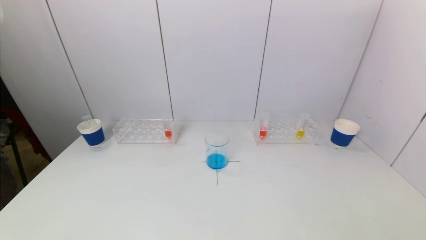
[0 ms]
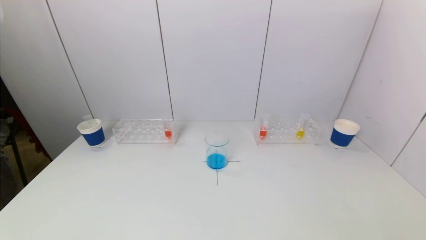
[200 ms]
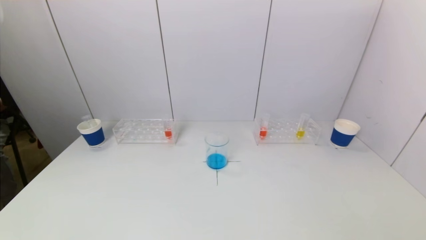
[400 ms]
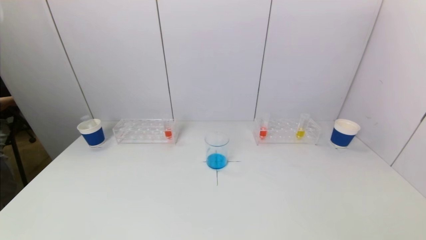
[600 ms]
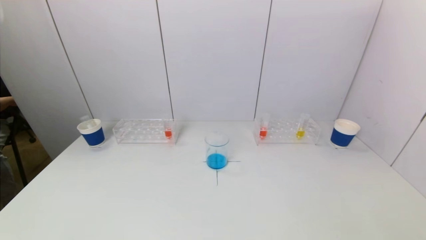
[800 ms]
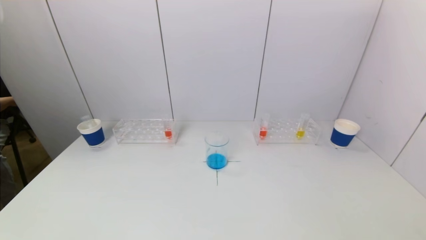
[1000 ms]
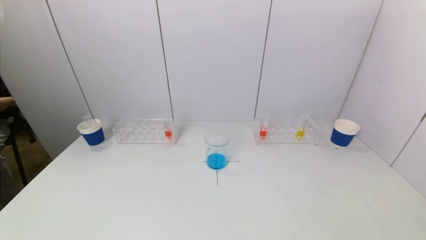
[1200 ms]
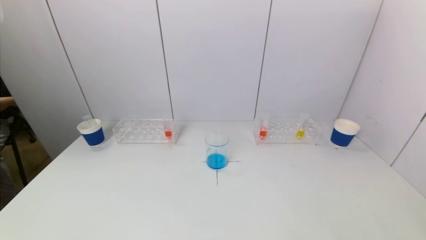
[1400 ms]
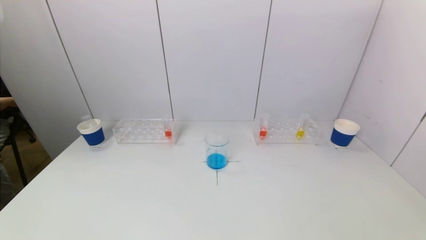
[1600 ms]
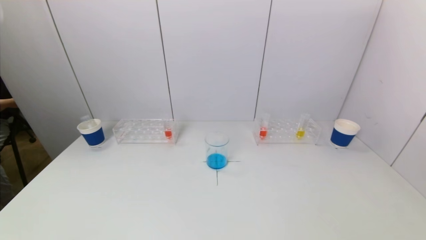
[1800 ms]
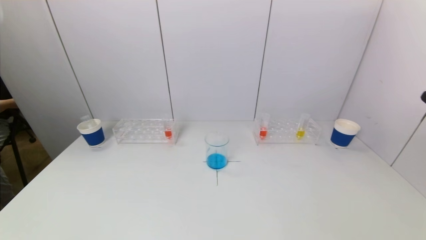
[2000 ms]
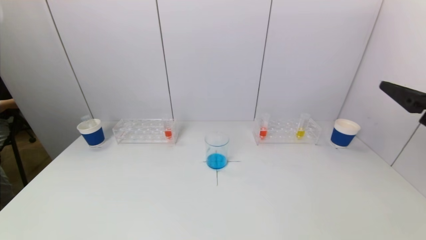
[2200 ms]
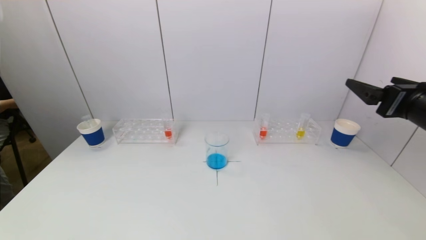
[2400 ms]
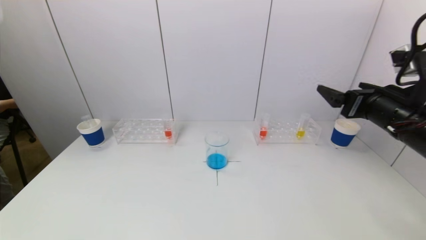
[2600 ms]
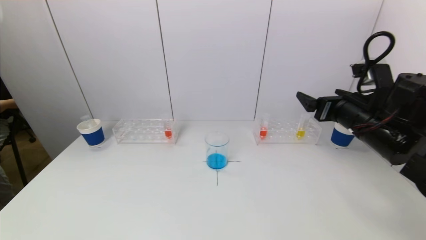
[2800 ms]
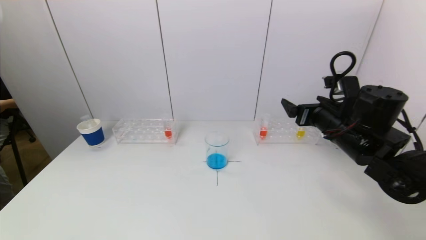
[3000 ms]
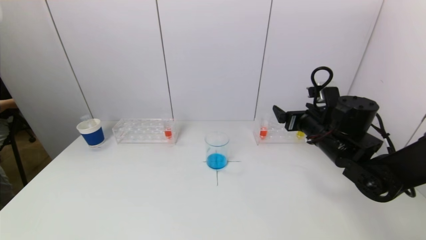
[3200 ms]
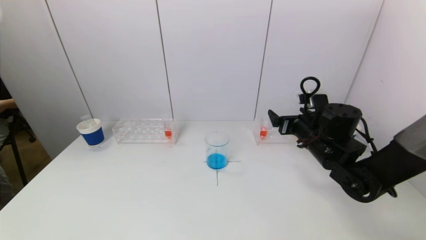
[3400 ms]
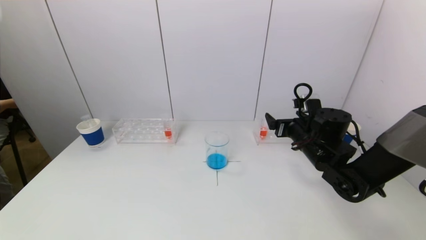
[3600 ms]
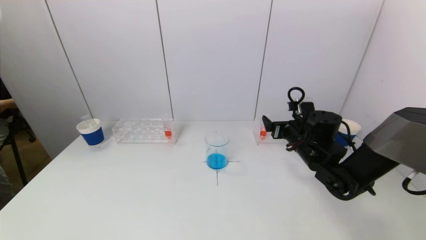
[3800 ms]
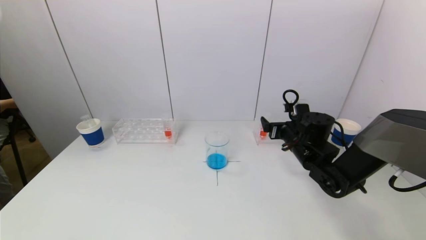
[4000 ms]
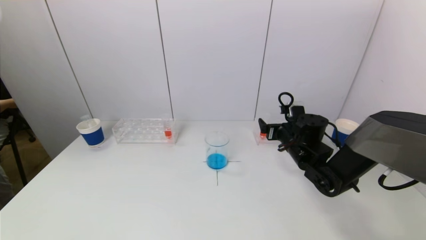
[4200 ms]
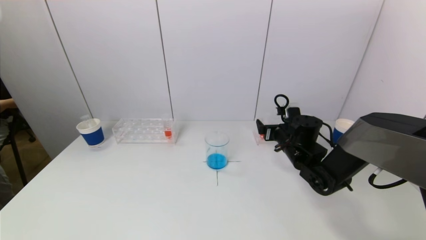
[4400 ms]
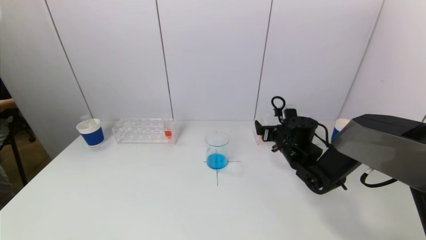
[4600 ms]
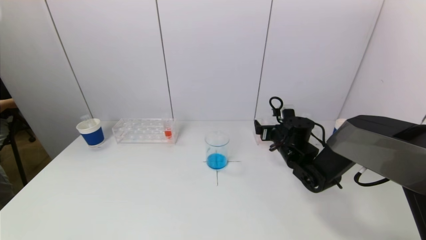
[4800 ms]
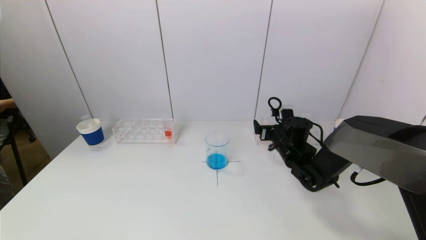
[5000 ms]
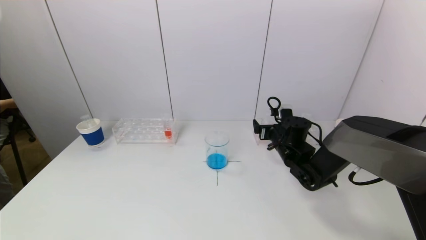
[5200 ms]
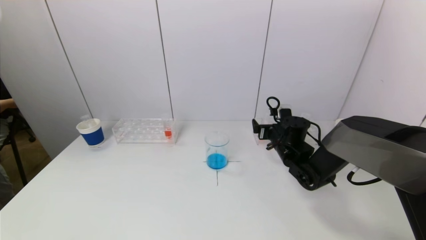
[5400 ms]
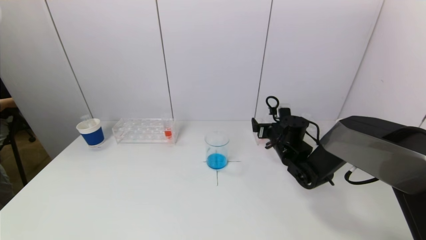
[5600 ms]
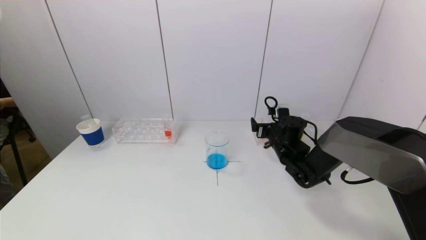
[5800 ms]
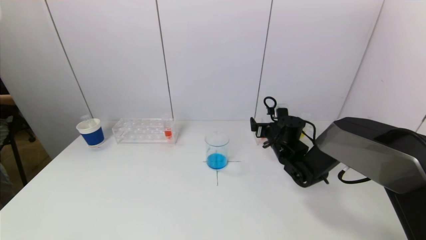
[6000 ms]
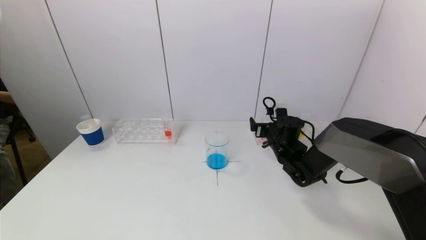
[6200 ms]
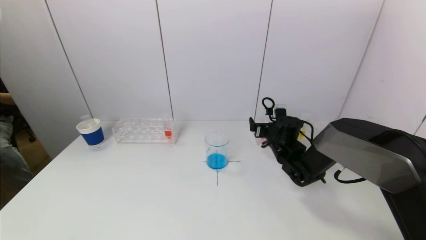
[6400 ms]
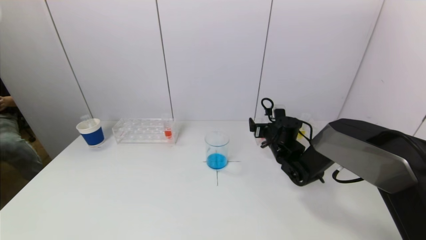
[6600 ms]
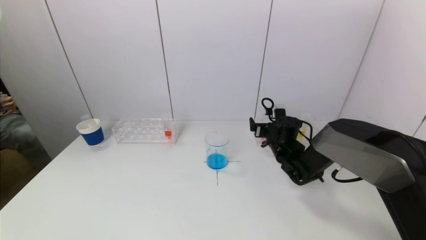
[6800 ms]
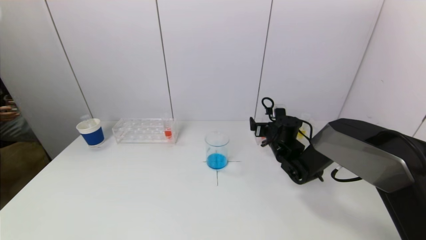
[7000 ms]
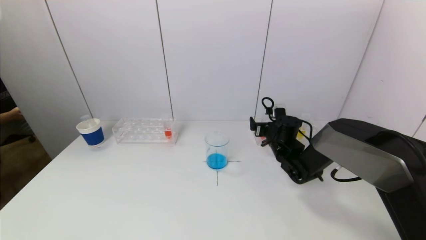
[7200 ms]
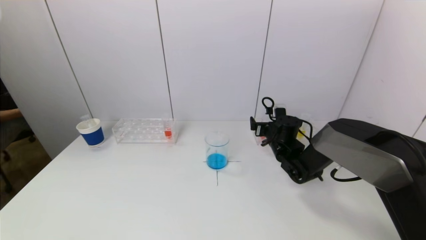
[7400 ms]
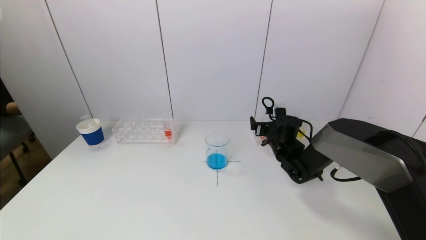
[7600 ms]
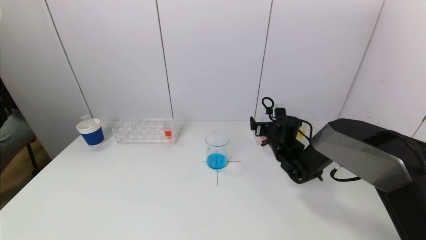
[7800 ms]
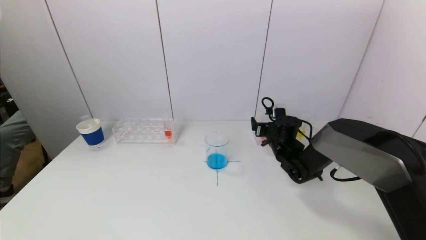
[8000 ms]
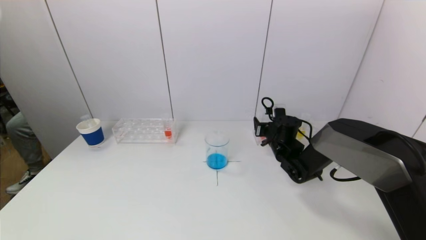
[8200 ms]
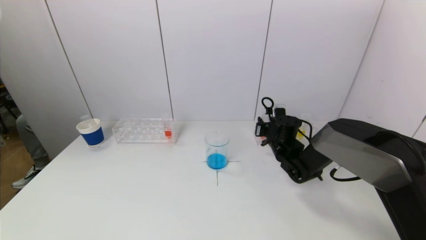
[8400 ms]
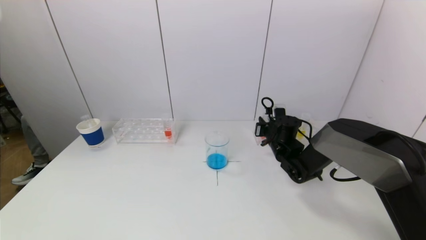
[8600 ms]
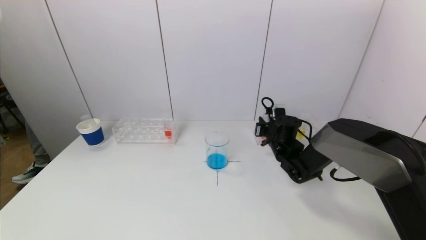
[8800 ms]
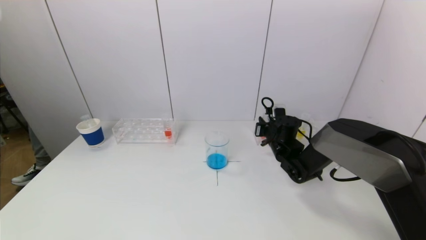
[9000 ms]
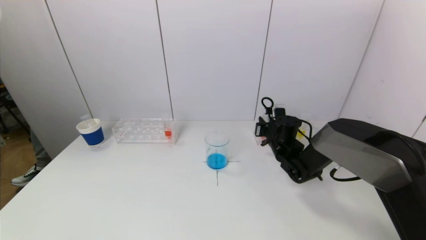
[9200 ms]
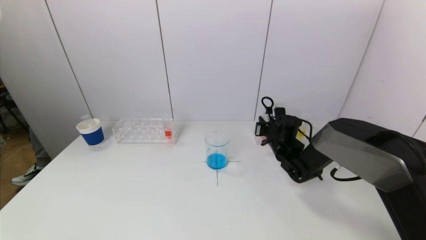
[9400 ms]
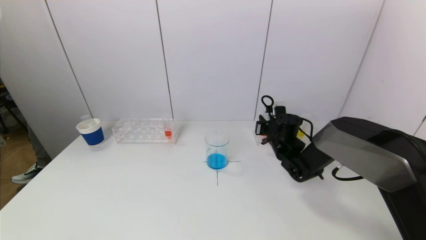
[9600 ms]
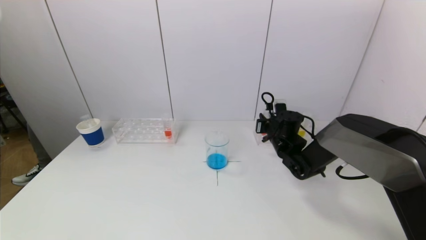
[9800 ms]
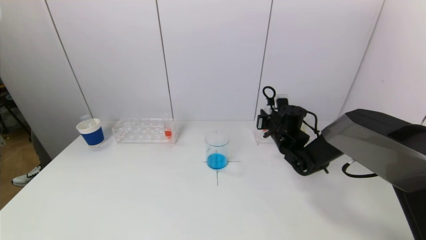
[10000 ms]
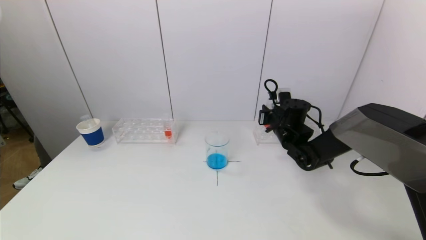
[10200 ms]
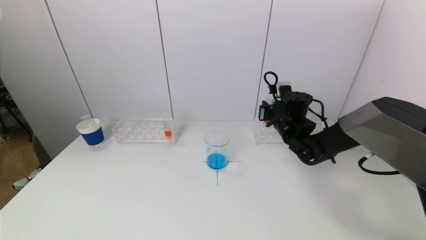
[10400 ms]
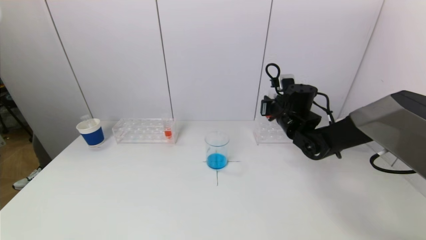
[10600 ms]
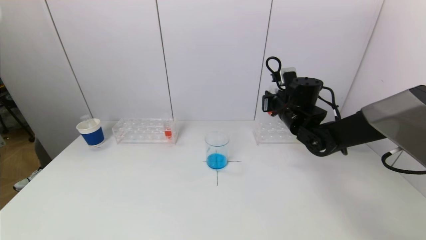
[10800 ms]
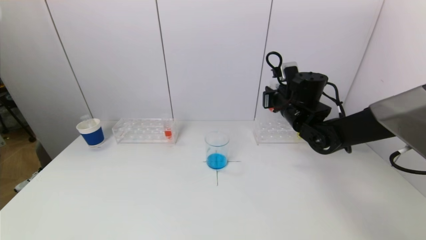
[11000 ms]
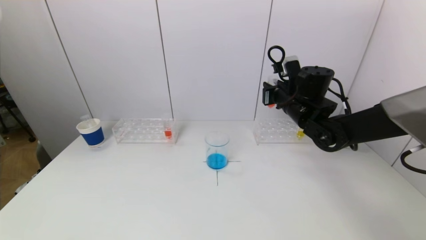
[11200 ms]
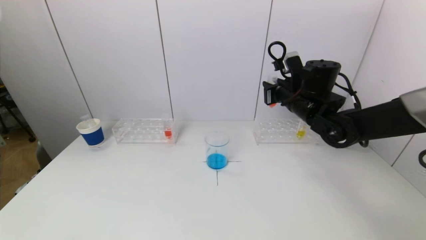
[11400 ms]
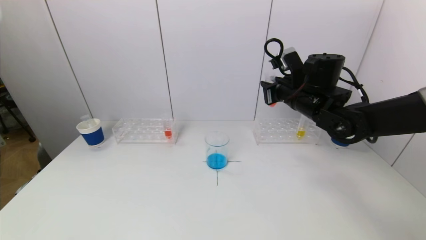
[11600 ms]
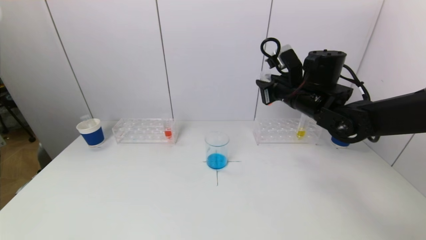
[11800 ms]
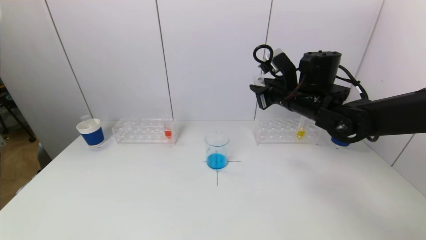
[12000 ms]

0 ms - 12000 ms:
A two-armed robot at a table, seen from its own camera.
Task of the whole recording: pick up a test tube with pigment on left test tube rack and a test tube with pigment on right test tube rack by grippers and pour them into the beaker.
Step, 0 ms - 8800 ms: Grasp the red reagent with the right gripper.
1600 ms - 3000 ms: The right gripper goes approximately 30 cm forward.
3000 ms - 4400 ms: The right gripper goes some 15 cm downward and forward.
4400 ms - 7600 ms: The grippers make only small movements.
9000 ms - 10400 ms: The right gripper is displaced upward by about 10 cm.
10400 ms - 12000 ms: The right gripper heads upward and backward, covering some 10 cm.

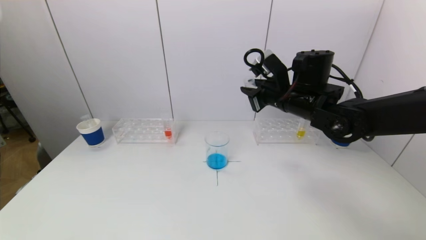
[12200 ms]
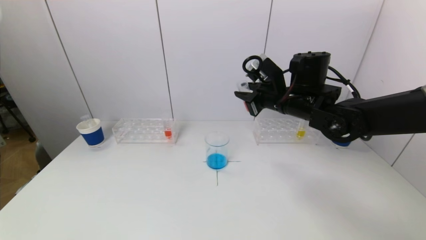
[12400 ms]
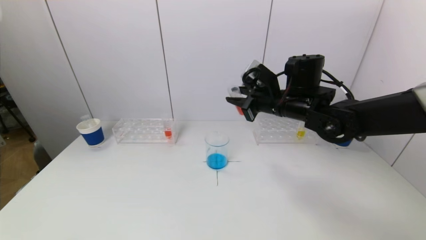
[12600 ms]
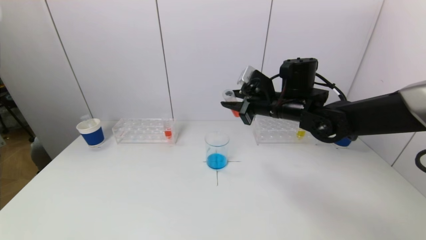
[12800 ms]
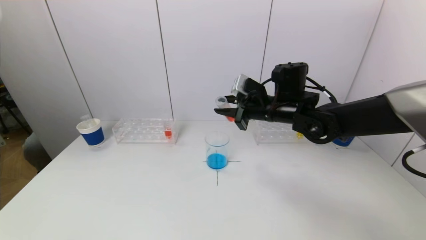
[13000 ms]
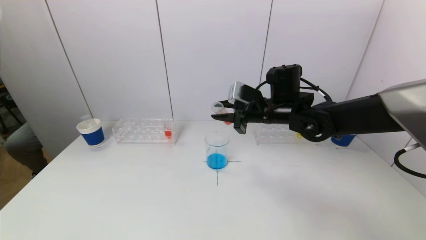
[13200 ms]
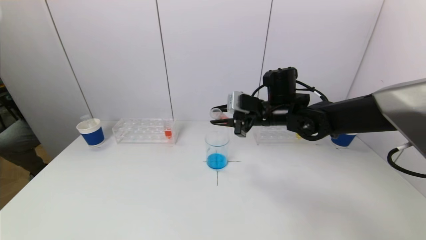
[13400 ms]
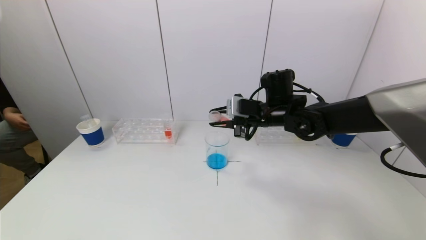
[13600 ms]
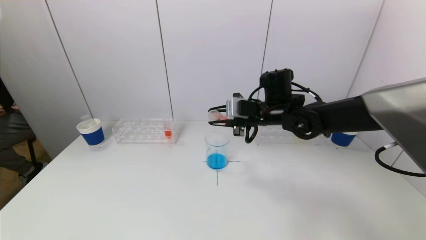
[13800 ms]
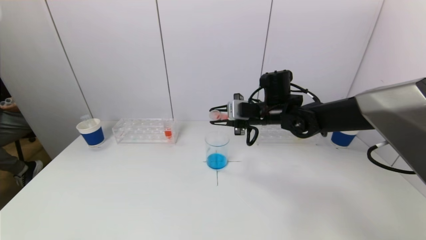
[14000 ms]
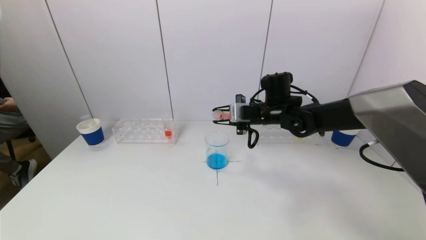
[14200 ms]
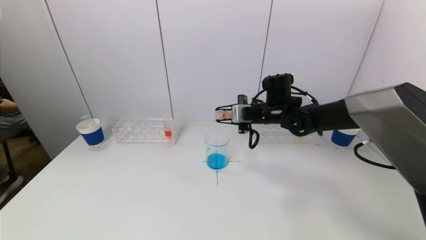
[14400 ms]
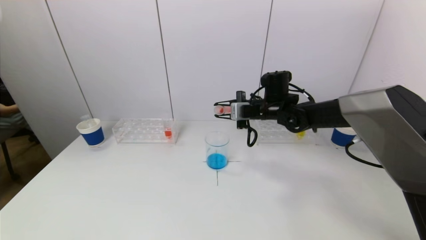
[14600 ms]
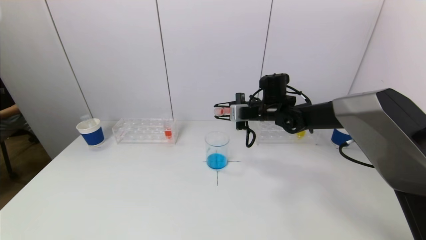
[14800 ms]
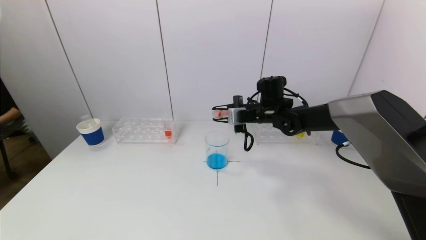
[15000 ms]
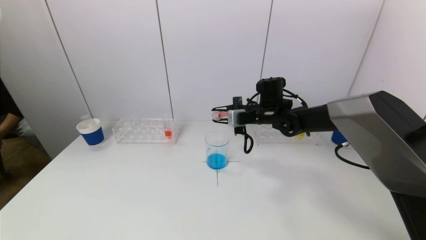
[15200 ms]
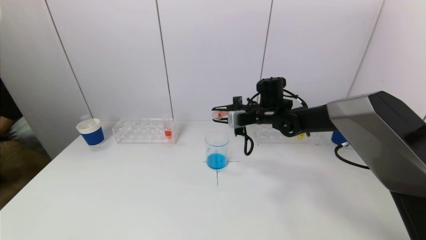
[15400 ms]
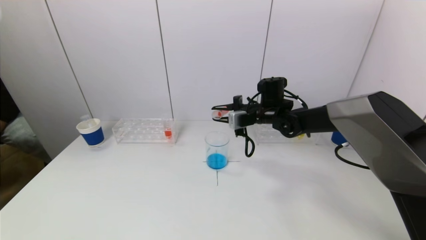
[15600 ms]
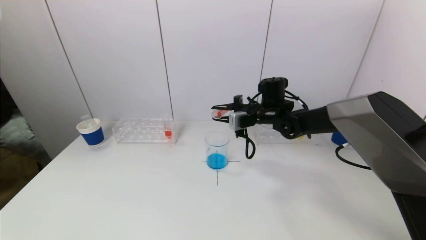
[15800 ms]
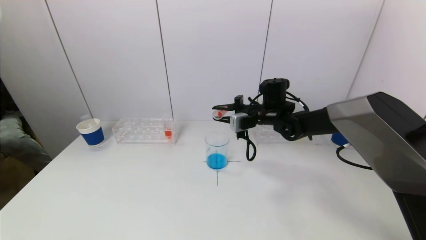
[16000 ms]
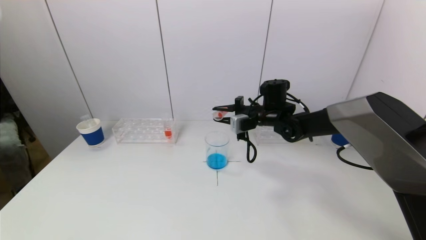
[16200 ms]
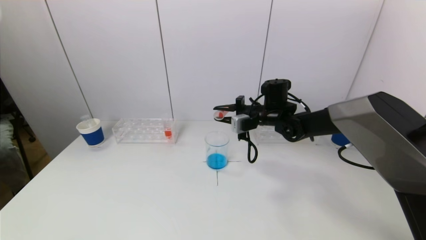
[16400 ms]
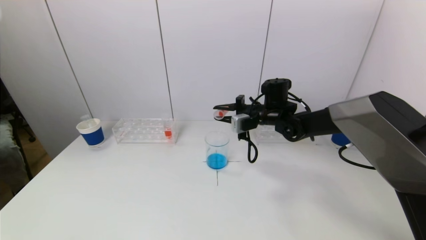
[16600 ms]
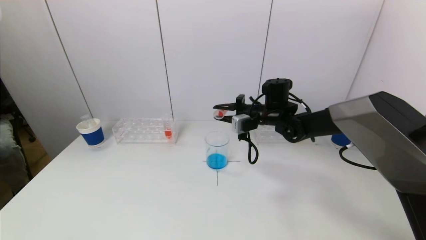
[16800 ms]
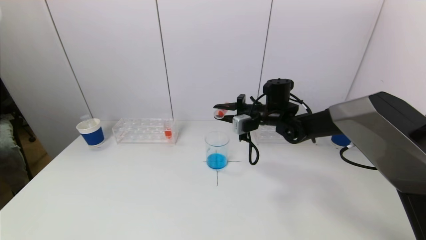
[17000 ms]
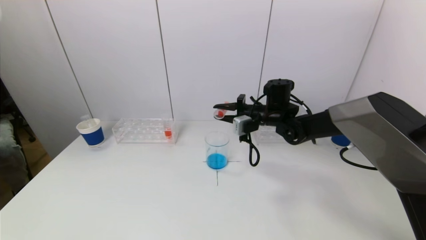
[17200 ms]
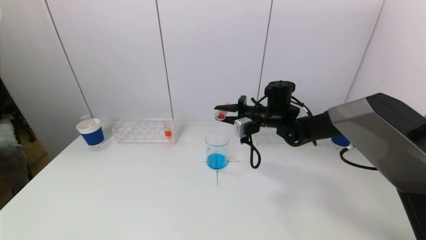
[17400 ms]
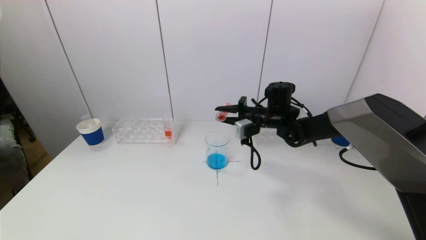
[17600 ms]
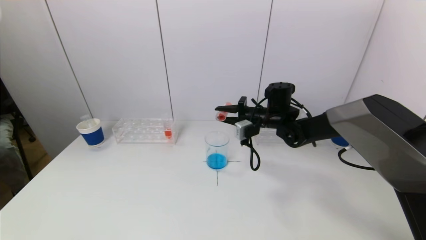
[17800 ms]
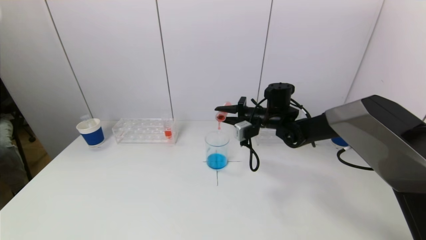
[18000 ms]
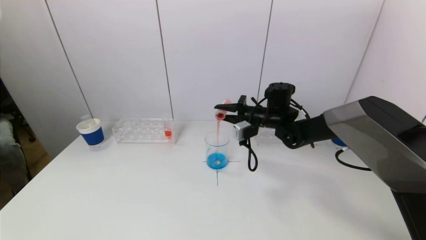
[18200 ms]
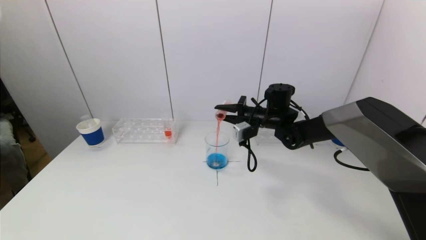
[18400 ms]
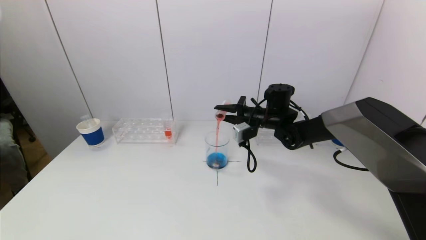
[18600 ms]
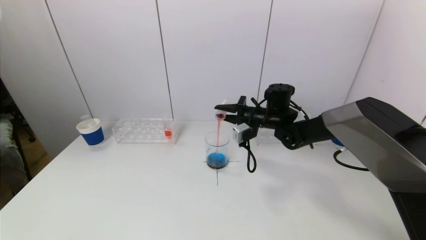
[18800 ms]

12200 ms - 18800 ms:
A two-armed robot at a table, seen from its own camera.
Task of the whole recording: pick up a test tube with pigment on left test tube rack and a test tube with pigment on right test tube rack by grippers and pour them into the beaker.
12200 ms - 13800 ms: The right gripper ends up some 5 cm from where it was.
13800 ms - 15400 ms: The right gripper goes approximately 5 cm forward.
15400 ms - 17200 ms: The grippers stay close to where they were, moving slightly.
17200 ms - 18800 ms: The grippers move only a little.
